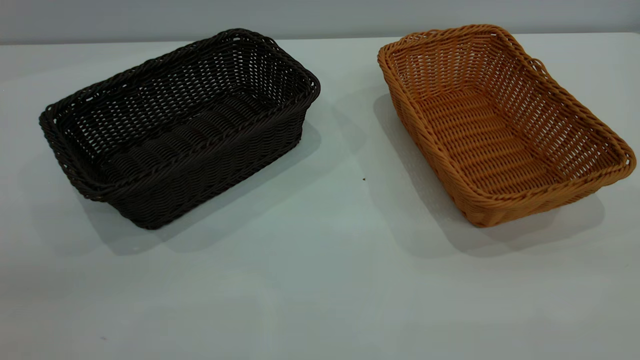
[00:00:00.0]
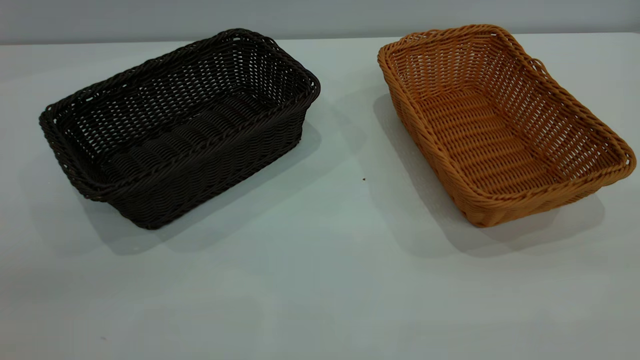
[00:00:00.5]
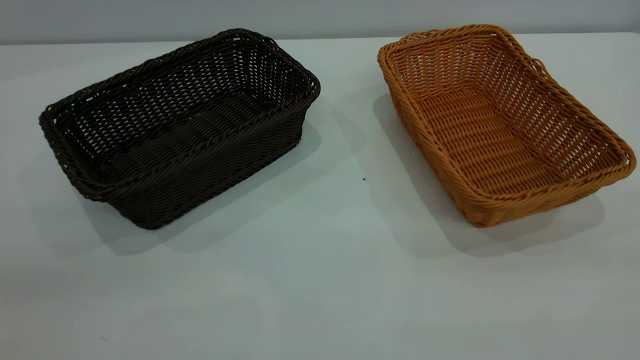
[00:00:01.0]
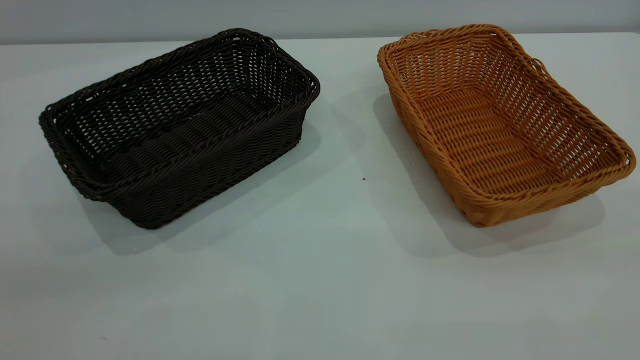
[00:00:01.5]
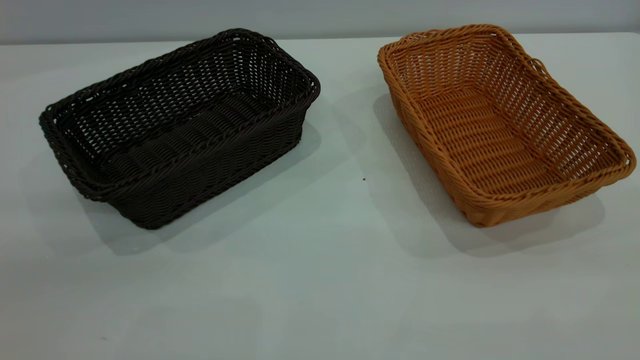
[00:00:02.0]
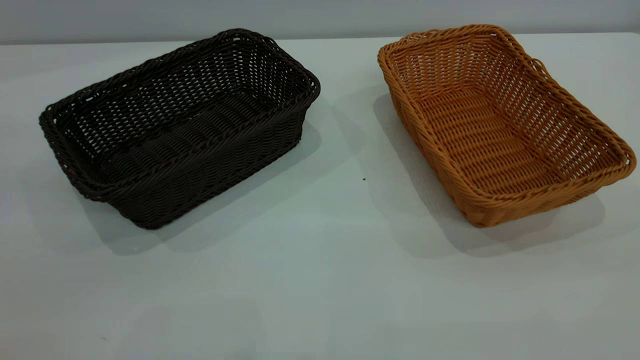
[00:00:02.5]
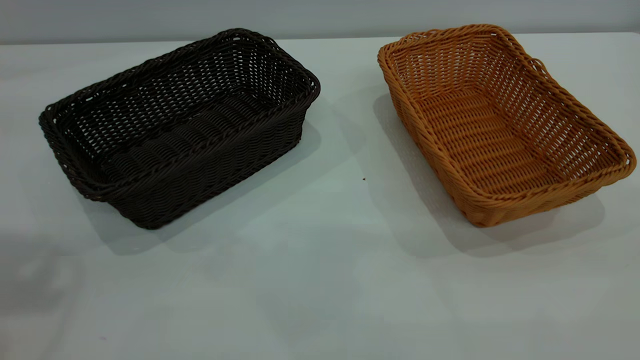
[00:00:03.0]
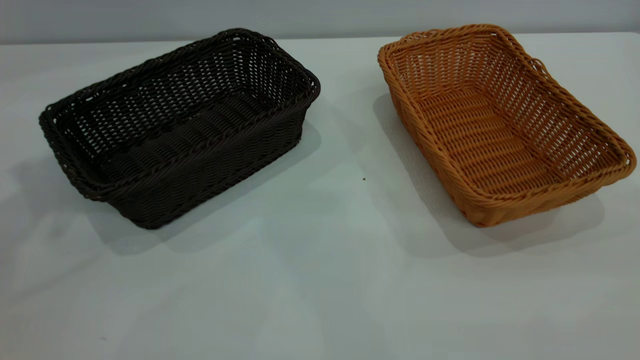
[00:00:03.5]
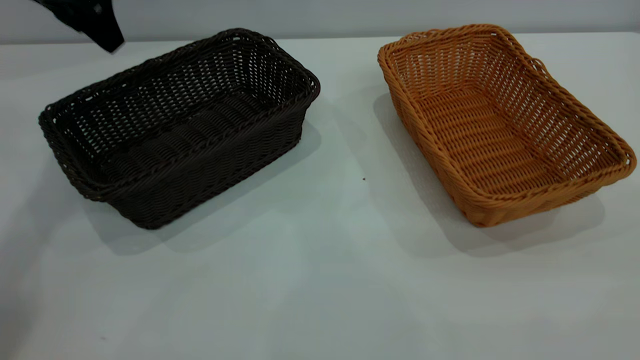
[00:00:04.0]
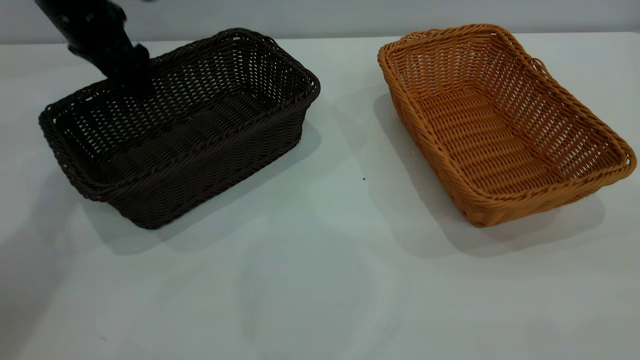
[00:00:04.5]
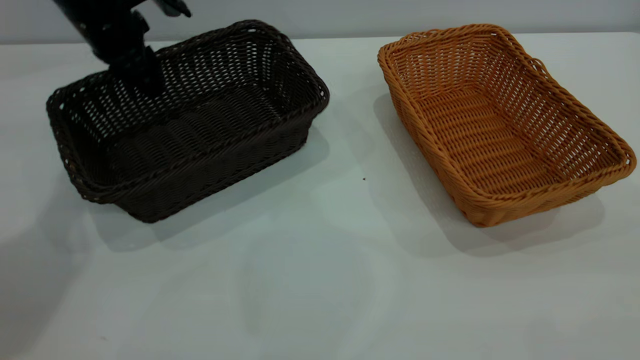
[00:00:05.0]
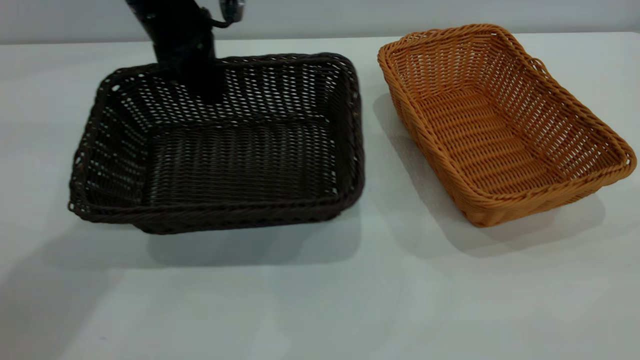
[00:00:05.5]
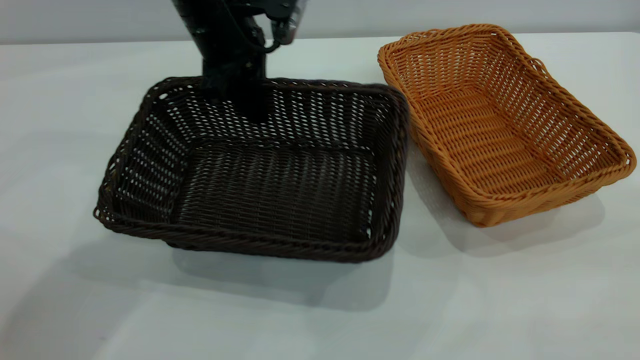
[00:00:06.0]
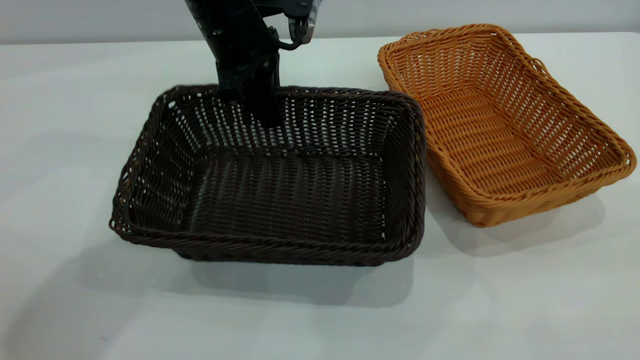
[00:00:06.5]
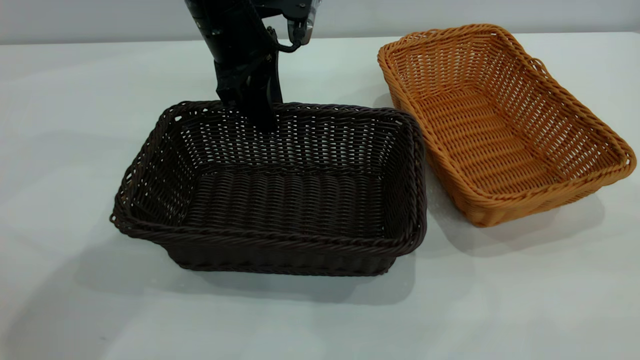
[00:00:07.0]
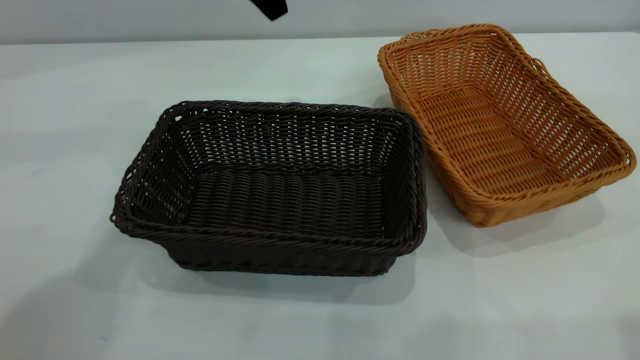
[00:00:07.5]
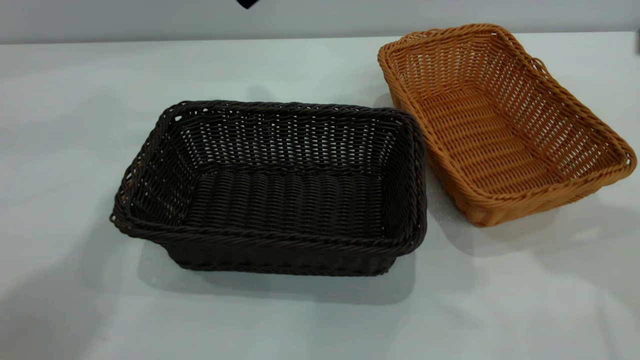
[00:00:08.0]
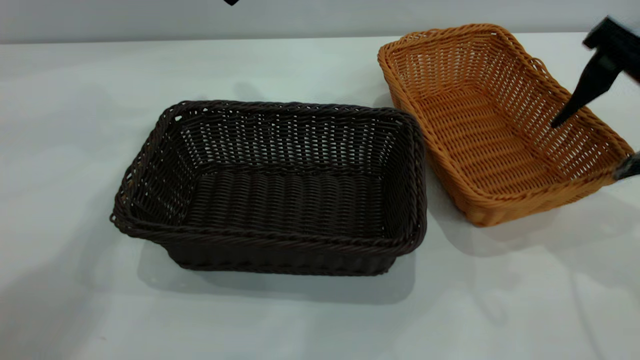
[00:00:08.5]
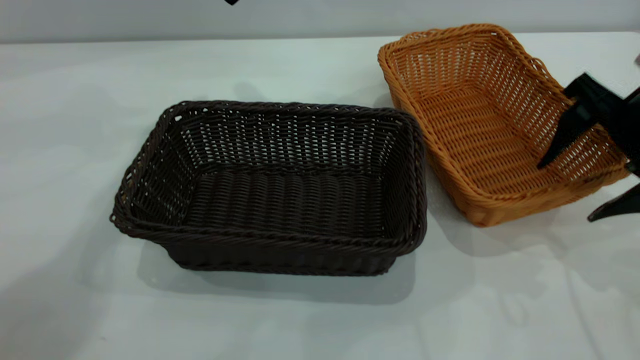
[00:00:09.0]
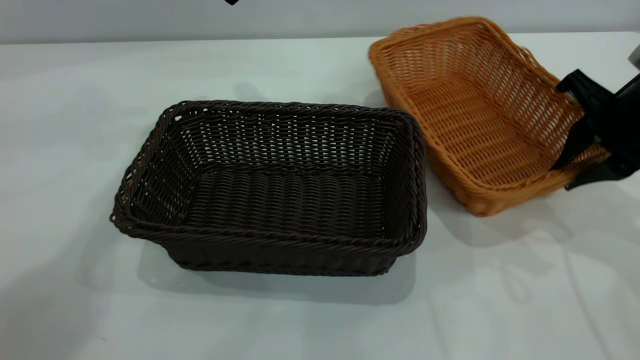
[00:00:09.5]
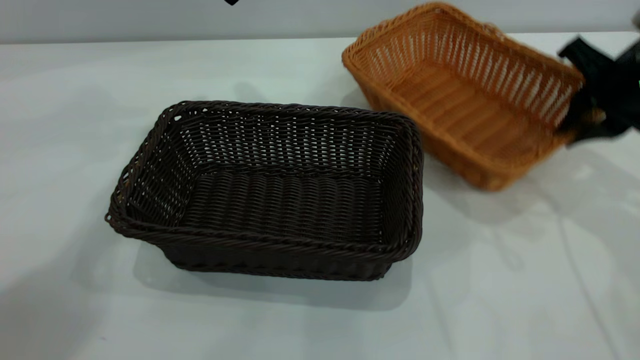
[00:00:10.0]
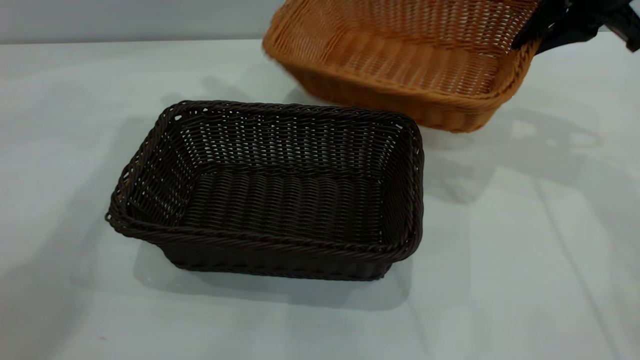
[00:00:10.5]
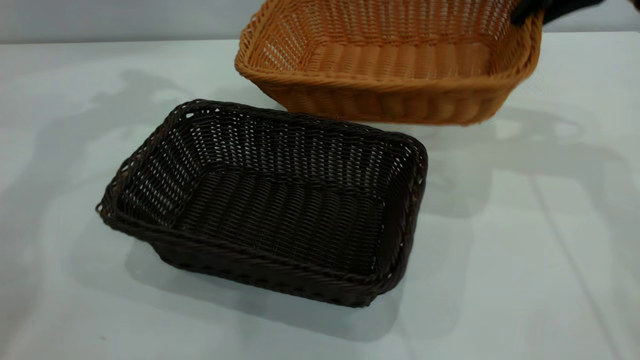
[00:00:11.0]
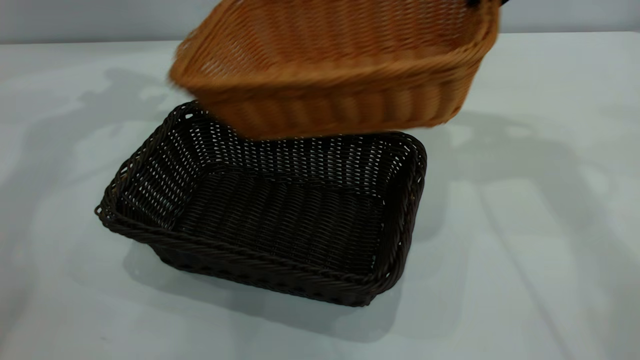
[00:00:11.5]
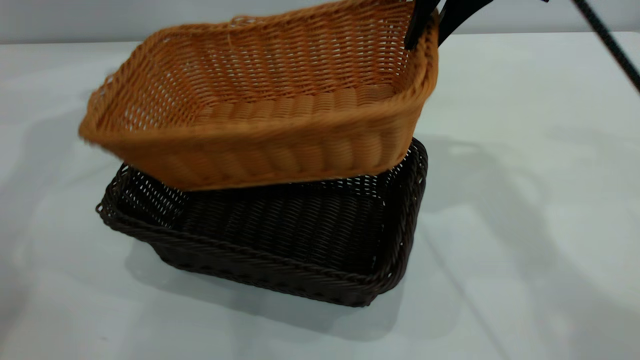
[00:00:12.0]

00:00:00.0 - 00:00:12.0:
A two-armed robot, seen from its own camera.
Task of the whole recording: the left gripper grasp the black basket and place it in the center of the table, the right gripper grasp the brown basket and place it inside the black one.
Step, 00:00:00.0 - 00:00:07.0: Move the dark basket to the center of view.
00:00:02.0 - 00:00:04.0: The left gripper is displaced forward by about 40 cm, and opens its fingers.
00:00:04.0 - 00:00:06.0: The left gripper goes about 20 cm to the right and downward, and closes its fingers.
00:00:06.0 - 00:00:08.0: The right gripper moves forward, some 25 cm. The left gripper goes approximately 10 cm upward, and opens up.
00:00:08.0 - 00:00:10.0: The right gripper travels downward and forward by about 15 cm, and closes up.
00:00:10.0 - 00:00:12.0: The left gripper heads to the left, covering about 15 cm. The right gripper heads to the left and upward, covering about 20 cm.

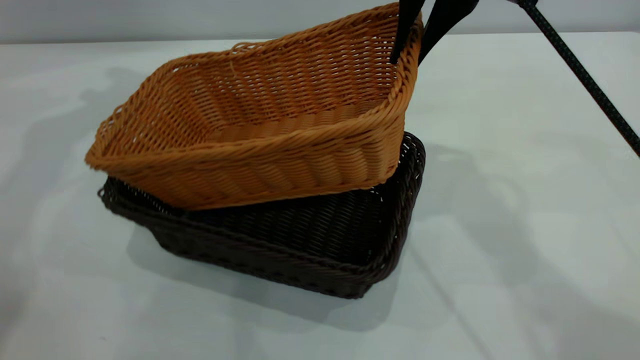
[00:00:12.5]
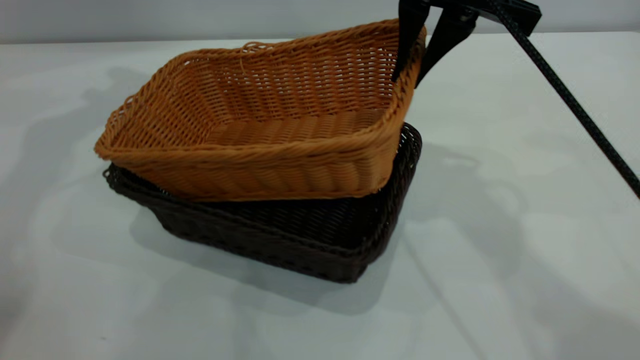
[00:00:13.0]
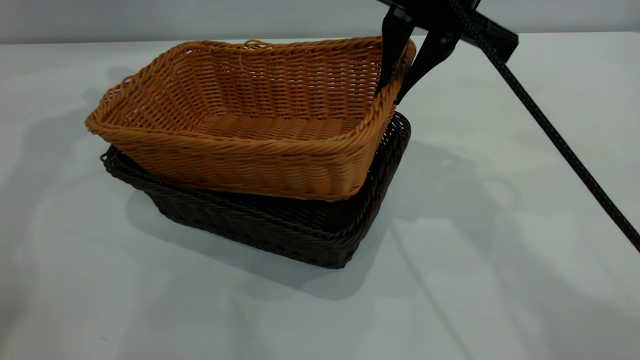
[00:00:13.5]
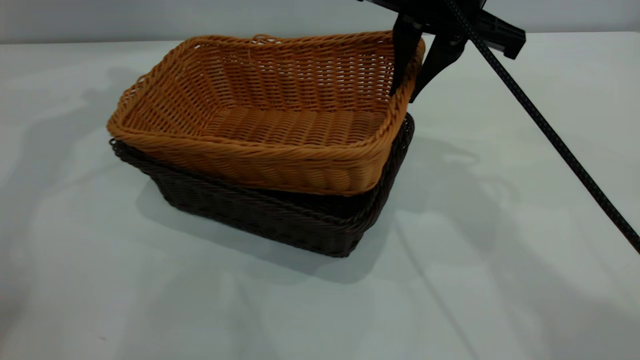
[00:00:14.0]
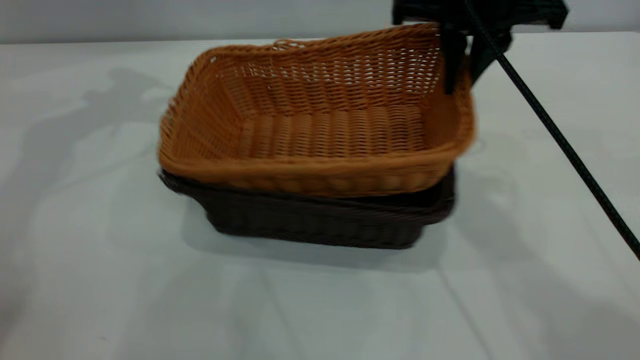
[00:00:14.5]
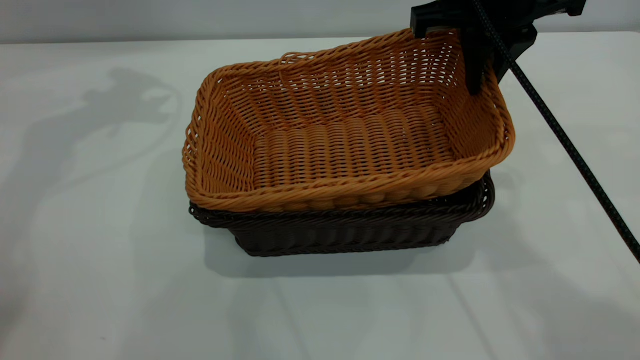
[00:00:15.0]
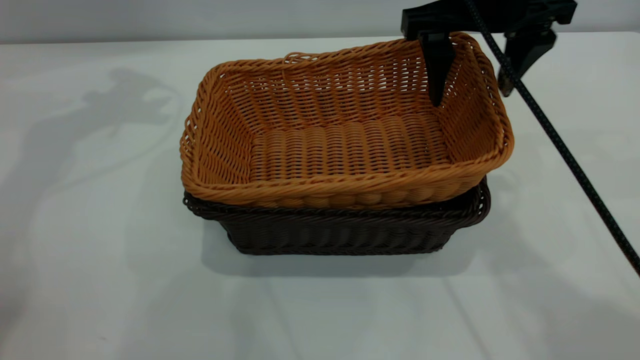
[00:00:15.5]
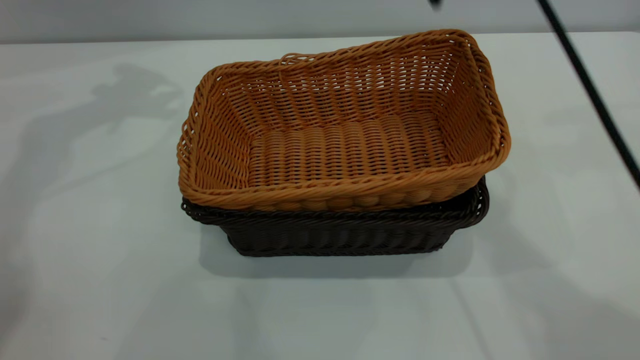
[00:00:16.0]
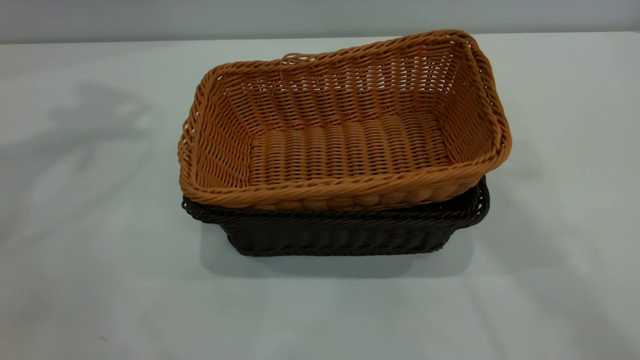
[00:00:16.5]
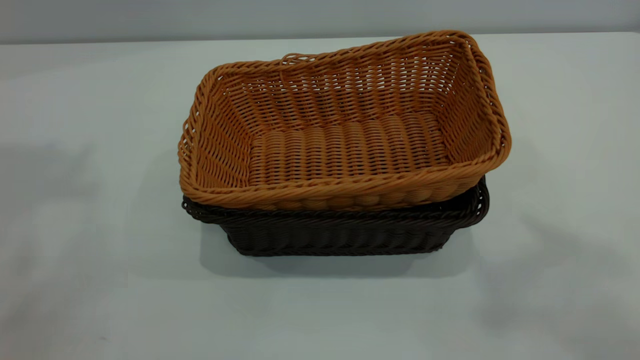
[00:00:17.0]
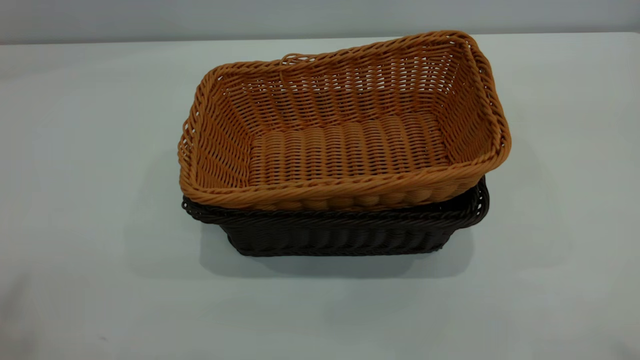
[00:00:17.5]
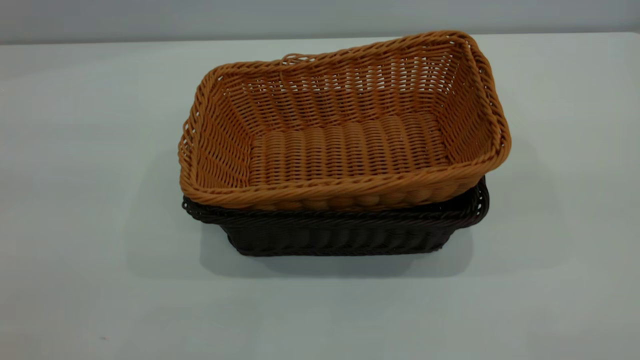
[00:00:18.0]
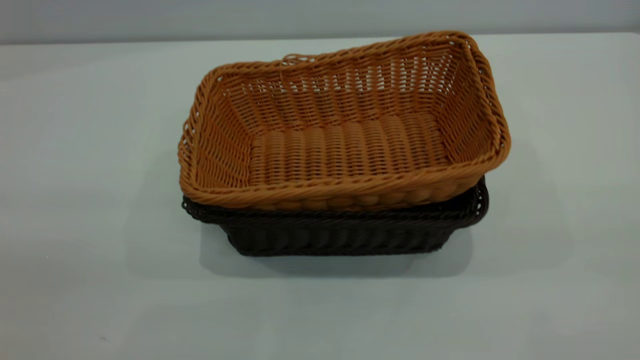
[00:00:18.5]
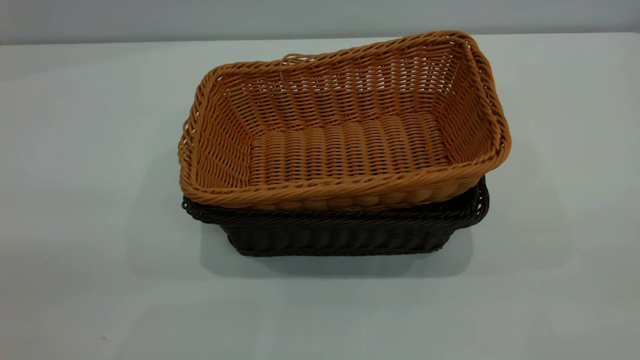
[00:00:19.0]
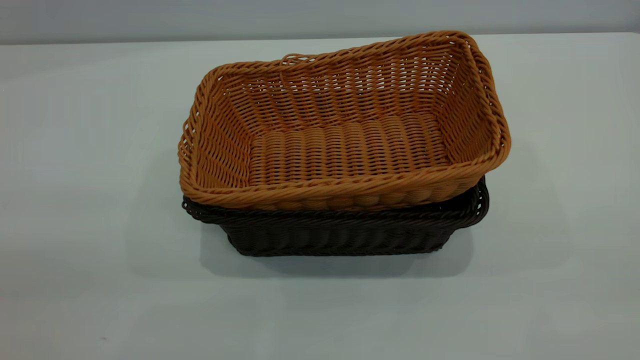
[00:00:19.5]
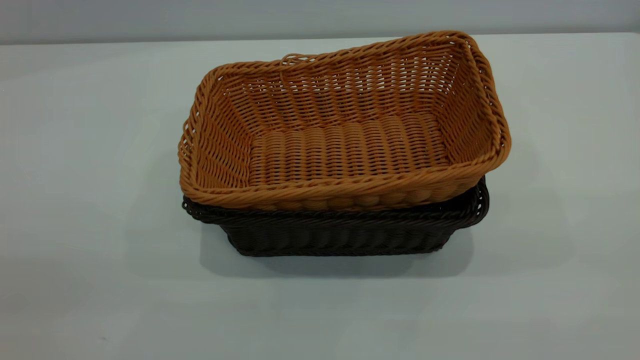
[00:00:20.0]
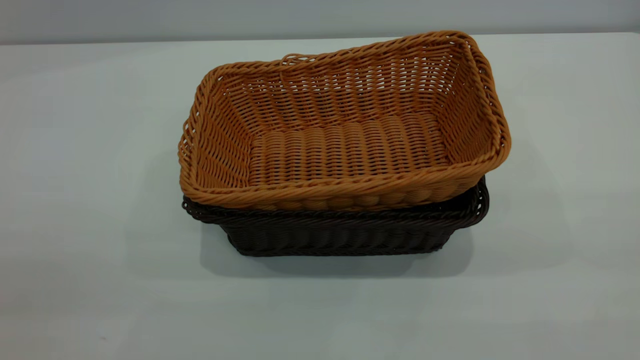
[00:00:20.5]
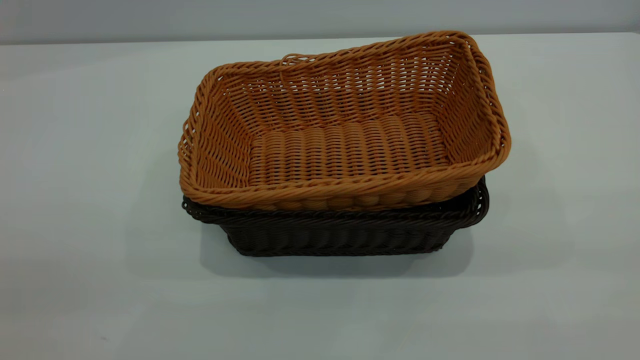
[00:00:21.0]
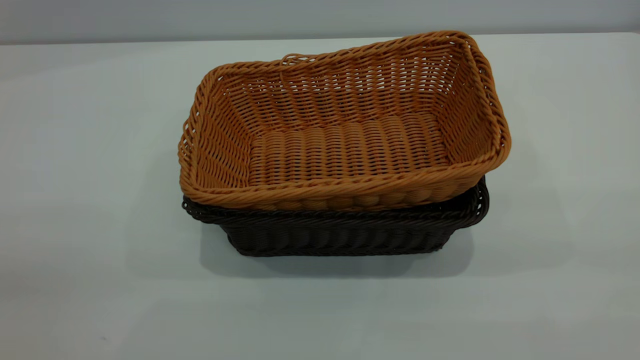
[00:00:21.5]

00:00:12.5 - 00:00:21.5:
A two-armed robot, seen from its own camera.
Task of the whole recording: the left gripper grasp the black basket and place it in the center of the table, the right gripper grasp the brown basket and place it inside the black one.
Step, 00:00:12.5 - 00:00:15.5: Place the light basket on the dark basket.
00:00:12.5 - 00:00:14.5: The right gripper changes place by some 5 cm.
00:00:14.5 - 00:00:17.0: The two grippers go some 40 cm upward and backward. The right gripper opens.
